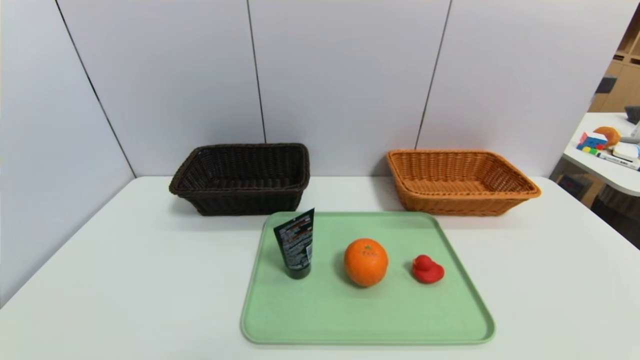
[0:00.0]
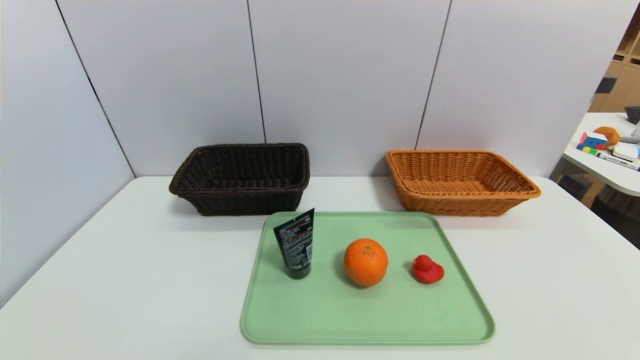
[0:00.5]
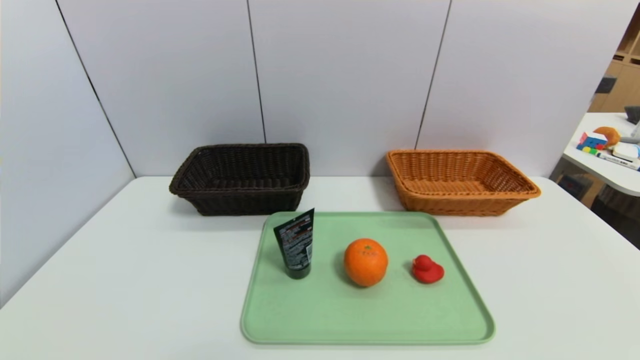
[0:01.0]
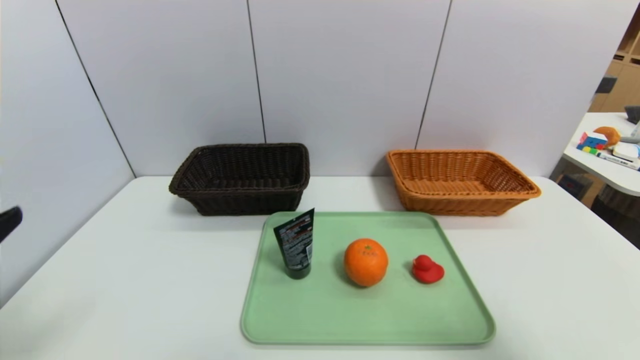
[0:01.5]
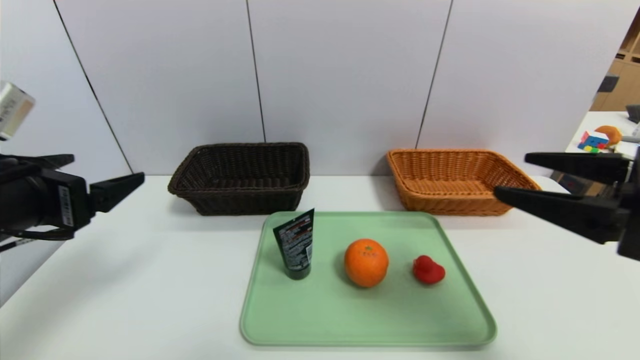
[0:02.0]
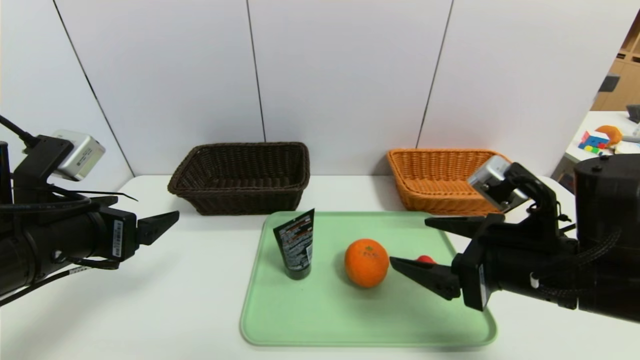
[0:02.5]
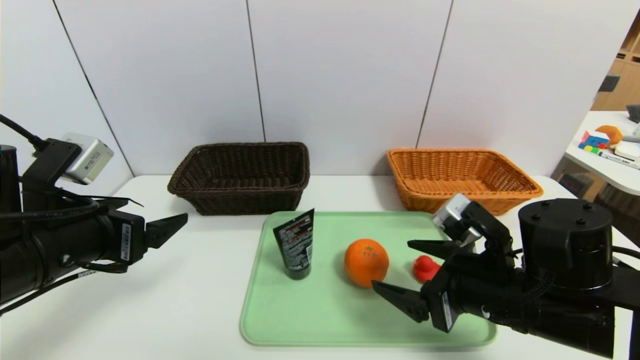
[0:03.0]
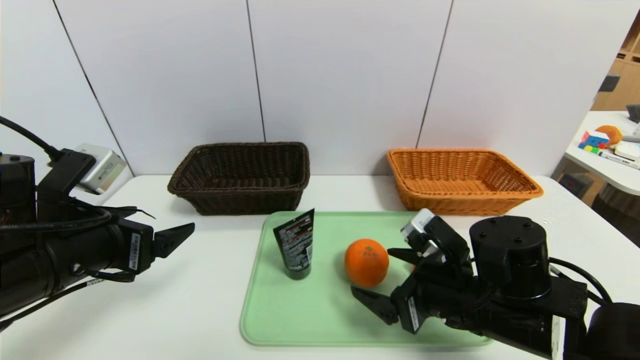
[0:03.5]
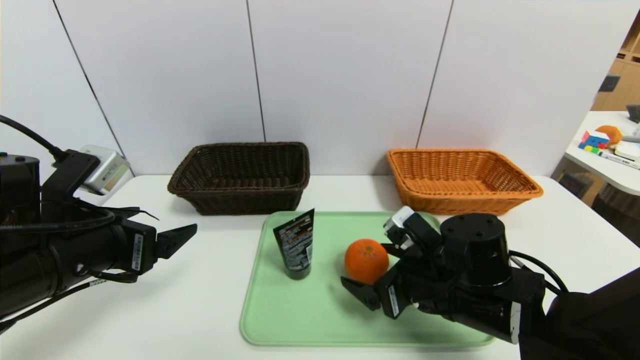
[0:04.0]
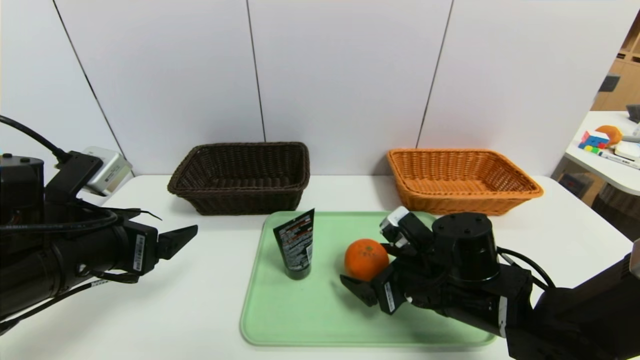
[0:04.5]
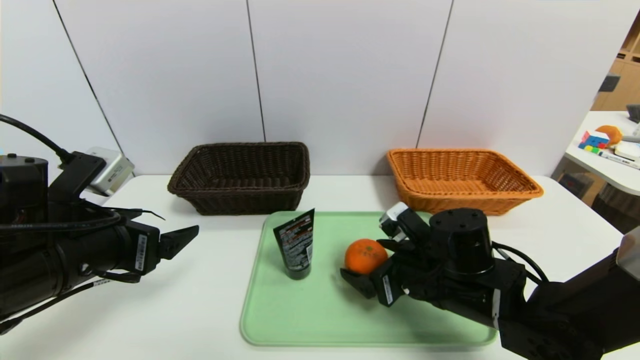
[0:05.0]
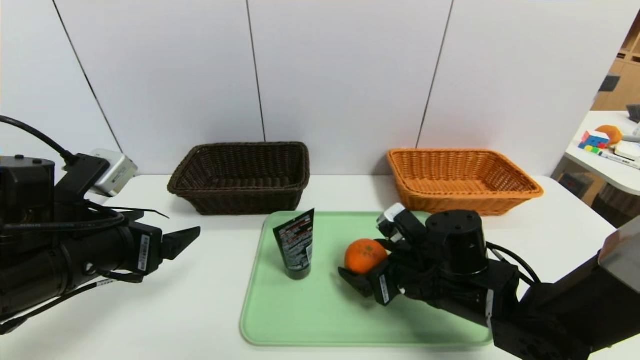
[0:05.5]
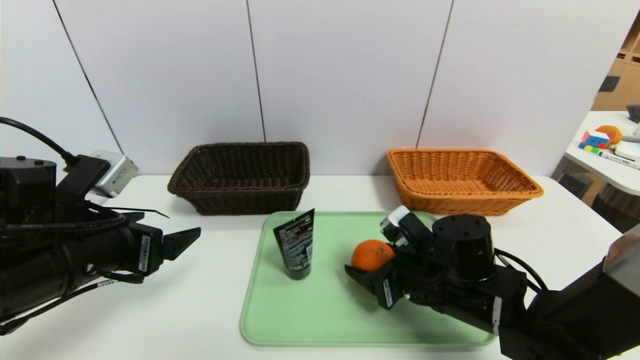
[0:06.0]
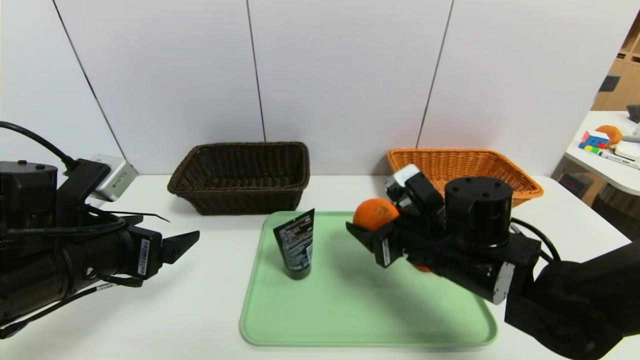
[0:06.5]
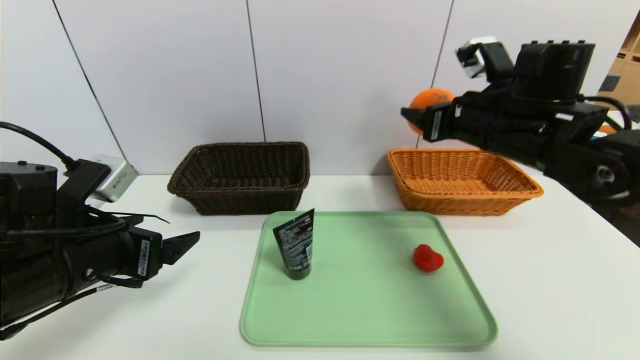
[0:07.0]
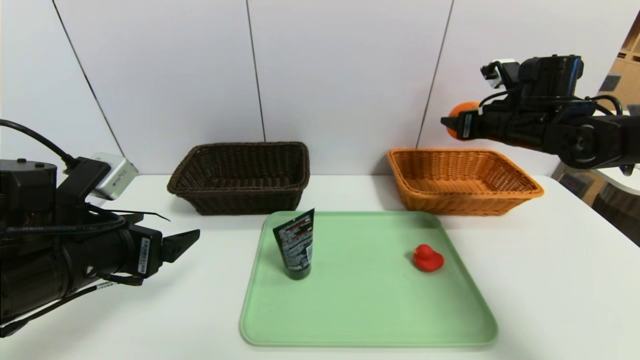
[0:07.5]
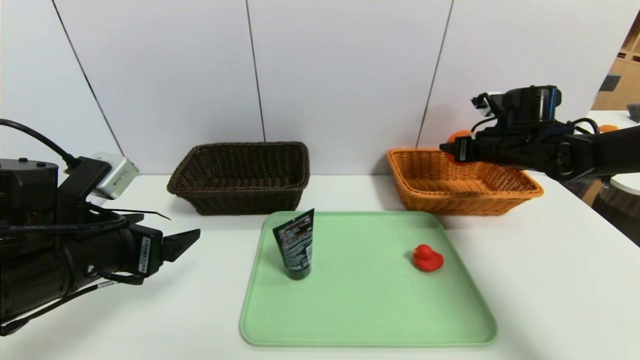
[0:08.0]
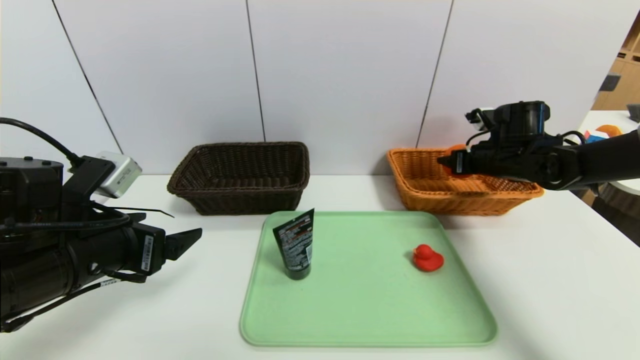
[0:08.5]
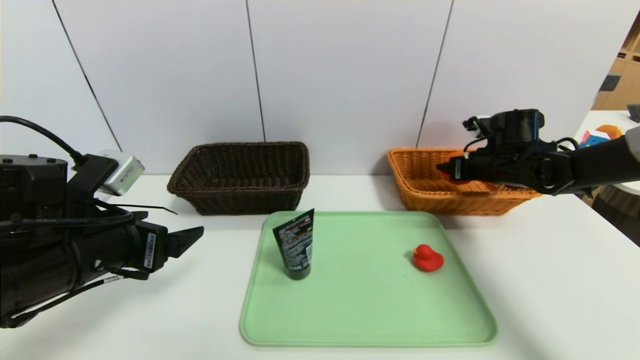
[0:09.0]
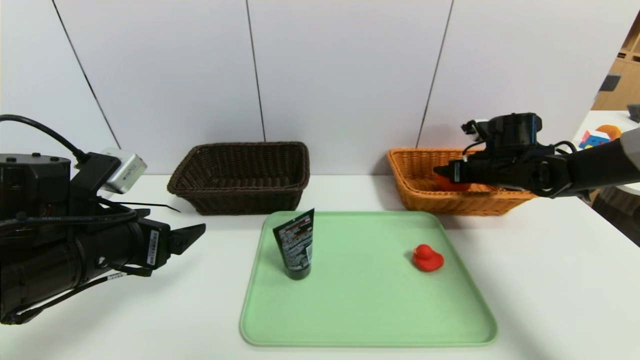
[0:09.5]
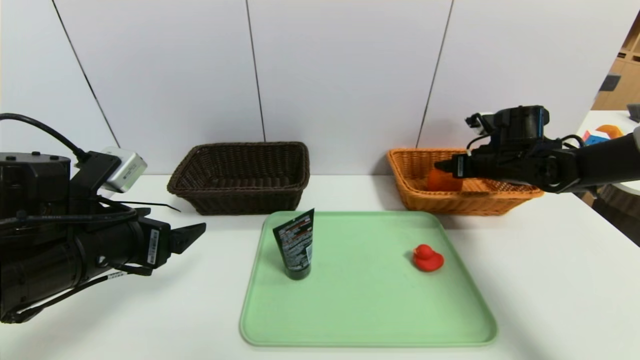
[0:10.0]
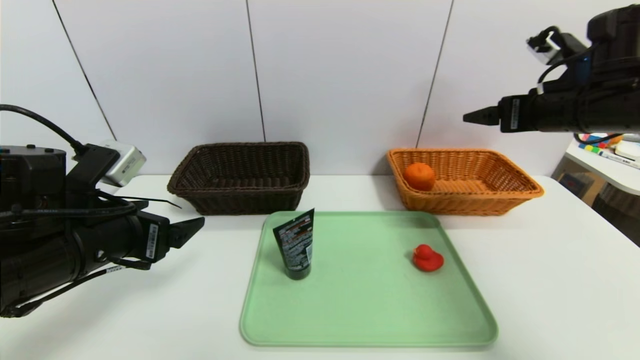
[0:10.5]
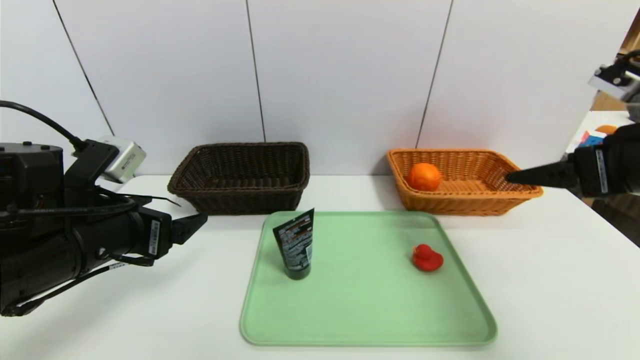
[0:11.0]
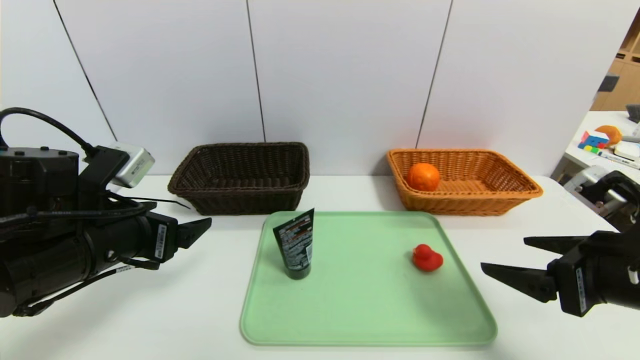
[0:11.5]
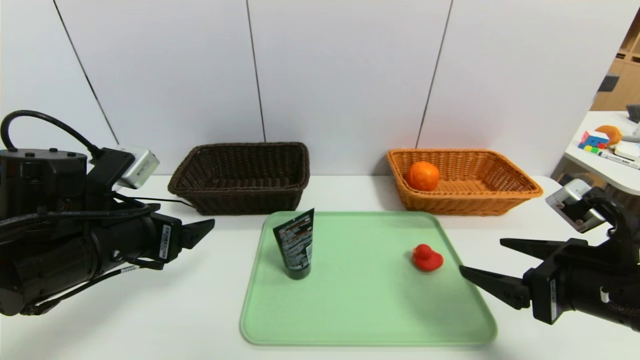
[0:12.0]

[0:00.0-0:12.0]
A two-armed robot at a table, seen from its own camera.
Task of the whole recording: place the food in the right basket with the right gripper, and place the non food items in the left basket with the left gripper.
Step, 0:00.0 to 0:10.0: Grasp the orange and put it in the right basket.
0:00.0 to 0:02.0: The two grippers go approximately 25 cm upward and forward.
0:02.0 to 0:04.0: The left gripper is displaced downward by approximately 5 cm, while the right gripper goes roughly 25 cm downward, to the left and forward.
0:04.0 to 0:06.0: The right gripper closes.
0:06.0 to 0:08.0: The right gripper travels forward, to the right and upward by approximately 25 cm.
0:08.0 to 0:10.0: The right gripper opens.
0:10.0 to 0:12.0: The right gripper moves backward, about 25 cm.

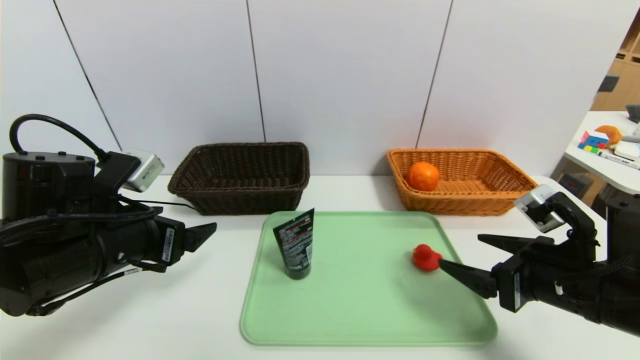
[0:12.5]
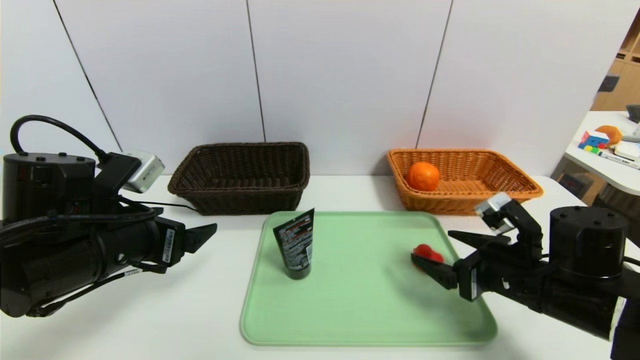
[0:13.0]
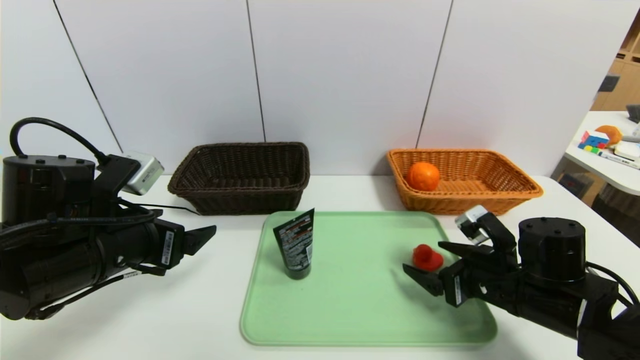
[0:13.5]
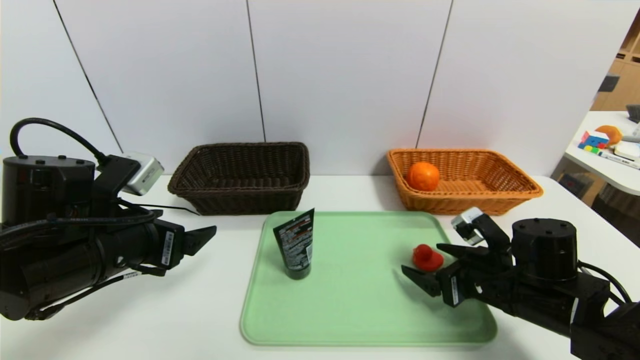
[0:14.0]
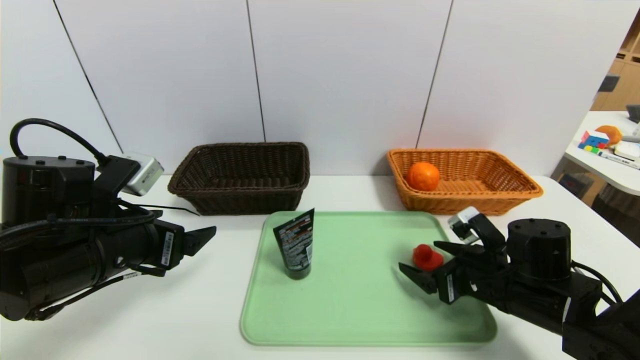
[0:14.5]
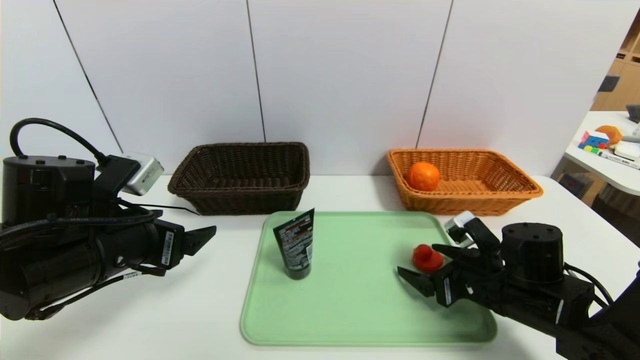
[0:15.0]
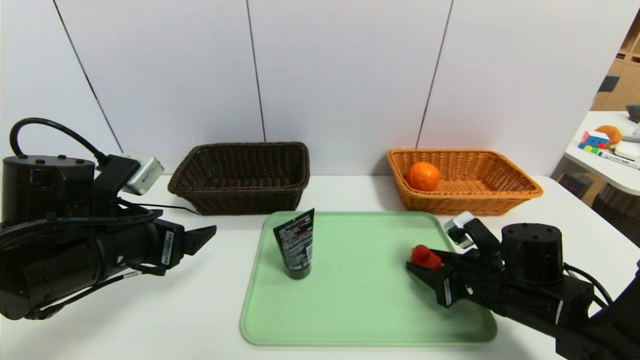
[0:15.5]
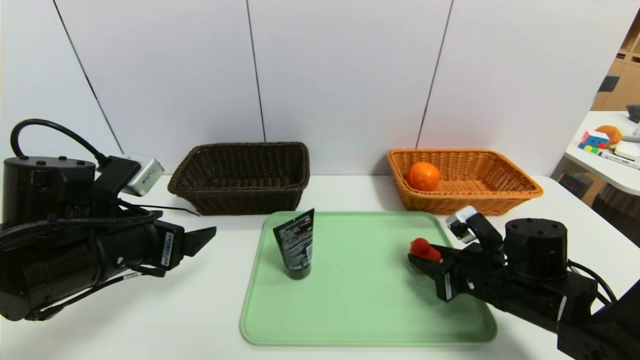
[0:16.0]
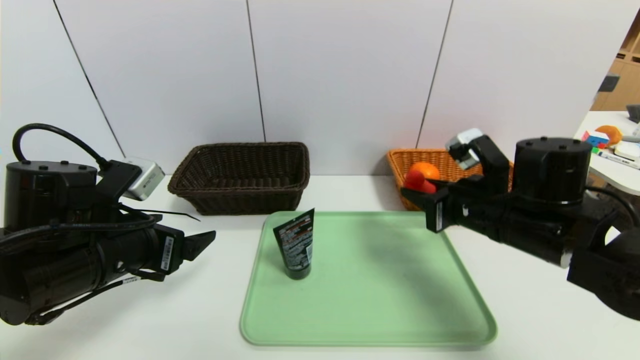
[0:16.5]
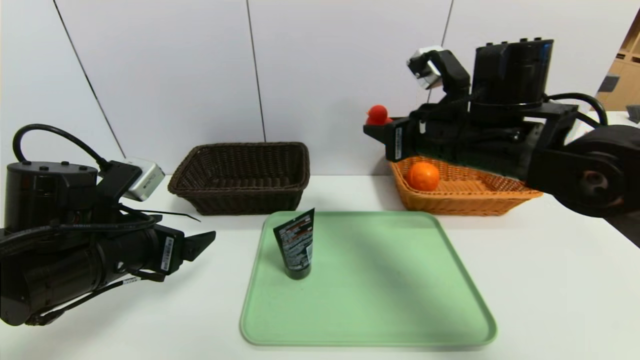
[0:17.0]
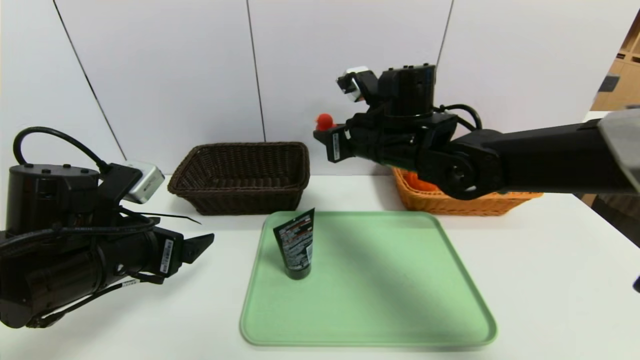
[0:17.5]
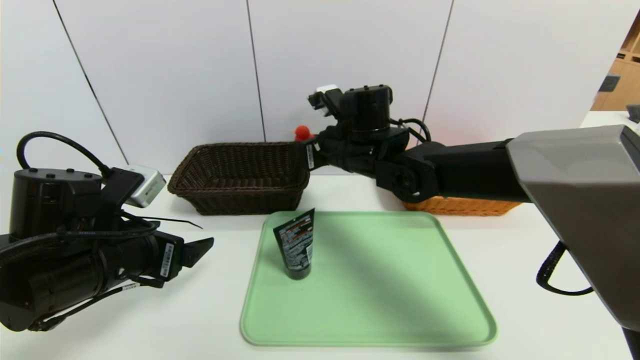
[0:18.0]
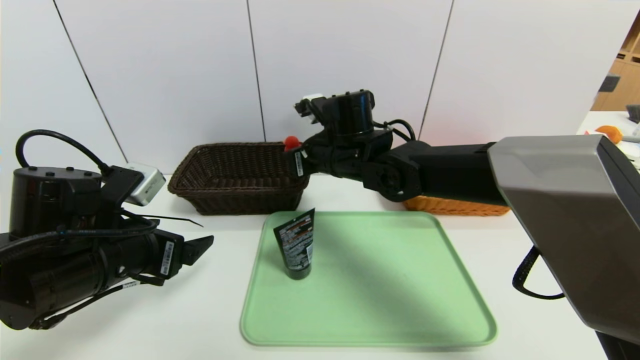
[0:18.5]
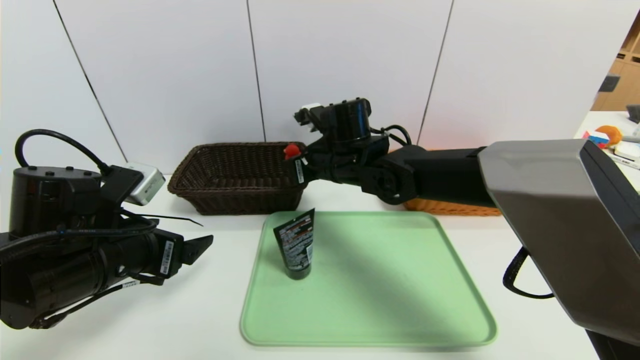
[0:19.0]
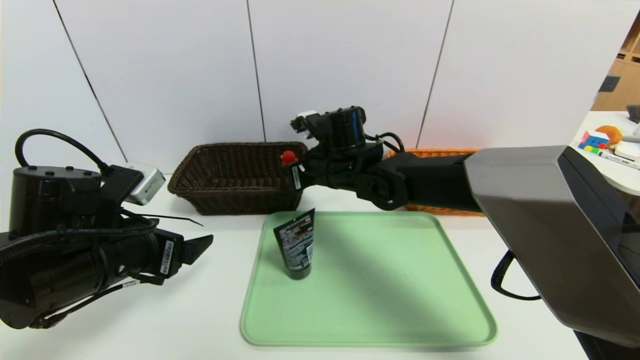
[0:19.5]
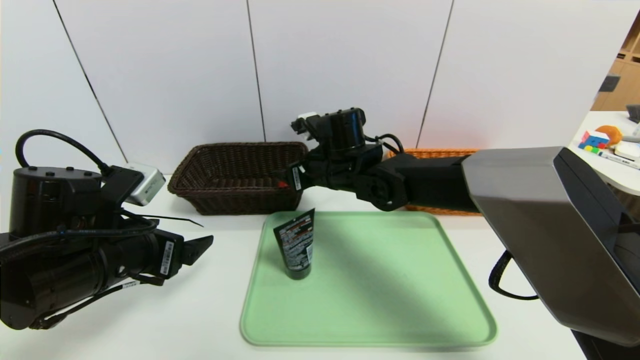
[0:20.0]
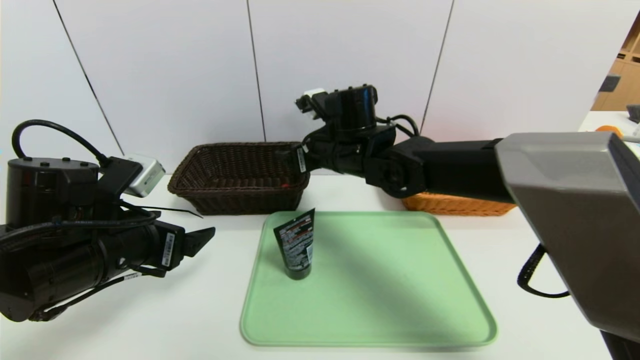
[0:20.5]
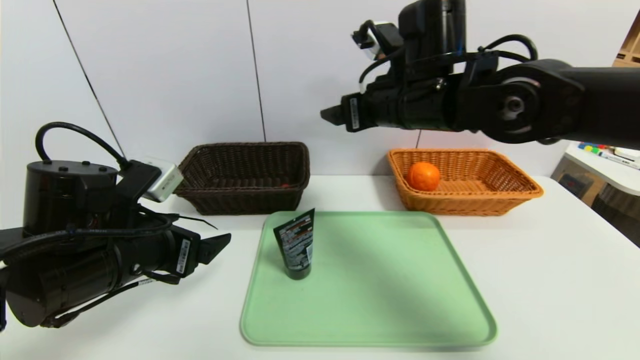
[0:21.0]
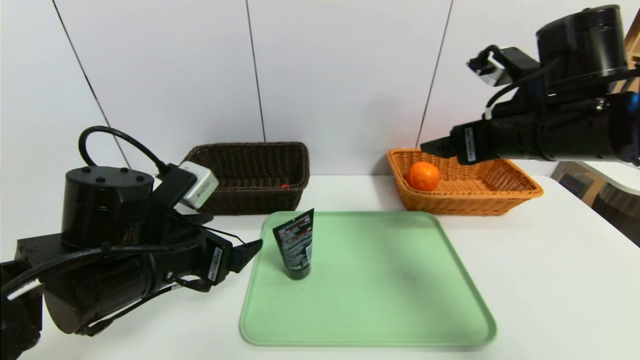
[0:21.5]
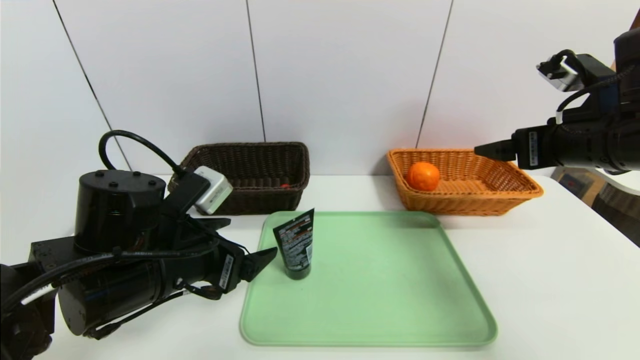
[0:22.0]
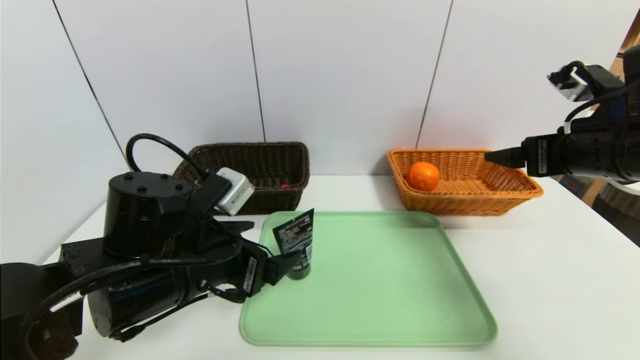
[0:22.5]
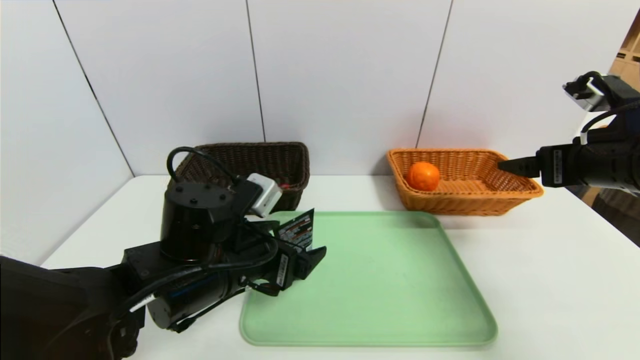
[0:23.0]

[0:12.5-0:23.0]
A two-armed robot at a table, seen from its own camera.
Task of the whole recording: place the food in the right basket with the right gripper, and place the non food items in the left basket with the left gripper.
0:12.5 to 0:14.5: The right gripper heads downward and forward, covering roughly 10 cm.
0:14.5 to 0:16.5: The right gripper goes about 10 cm upward, and closes up.
0:16.5 to 0:19.0: The right gripper travels to the left and forward by about 20 cm.
0:19.0 to 0:21.0: The right gripper goes about 15 cm upward, to the right and backward, and opens.
0:21.0 to 0:23.0: The left gripper heads to the right, covering some 10 cm. Meanwhile the right gripper is displaced to the right and backward by roughly 20 cm.
